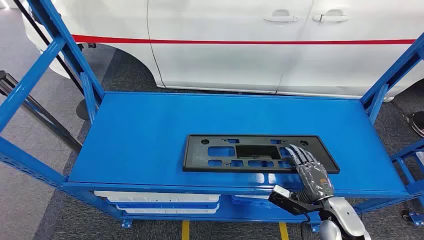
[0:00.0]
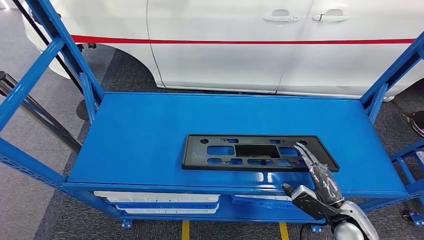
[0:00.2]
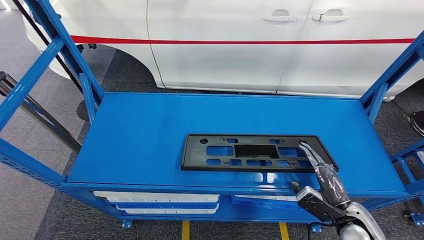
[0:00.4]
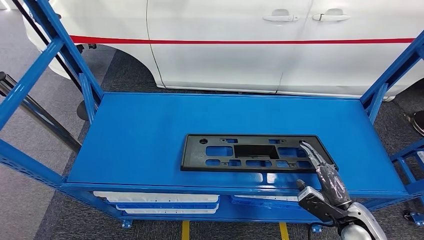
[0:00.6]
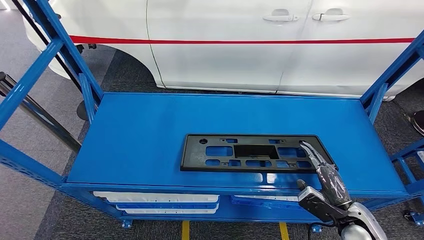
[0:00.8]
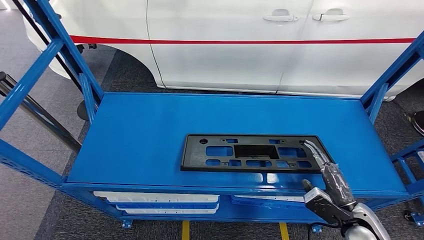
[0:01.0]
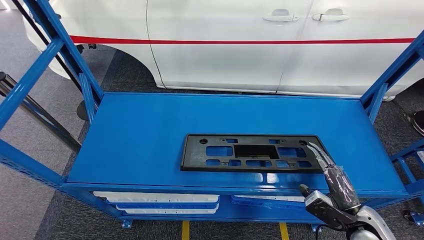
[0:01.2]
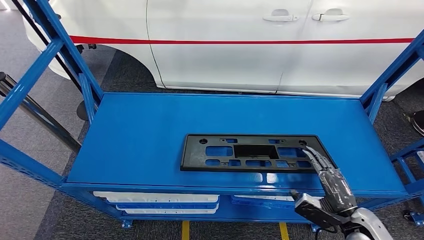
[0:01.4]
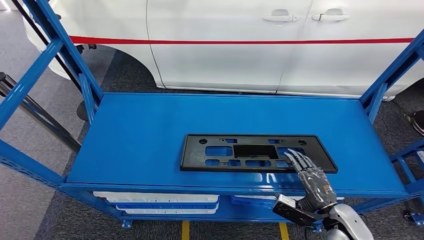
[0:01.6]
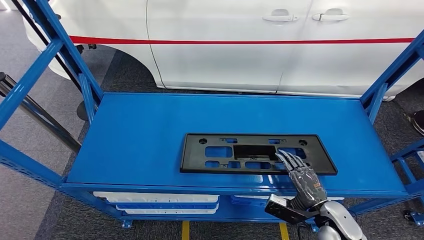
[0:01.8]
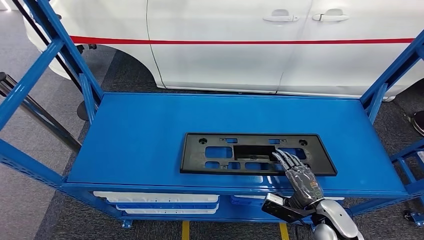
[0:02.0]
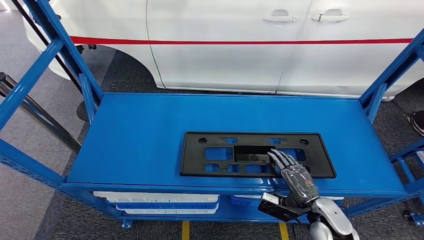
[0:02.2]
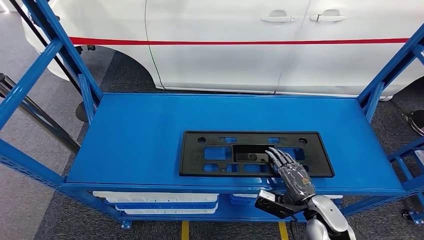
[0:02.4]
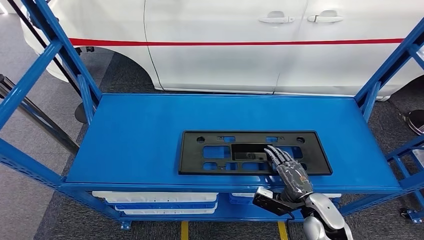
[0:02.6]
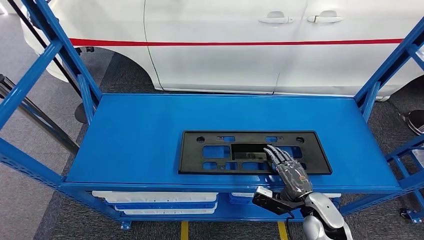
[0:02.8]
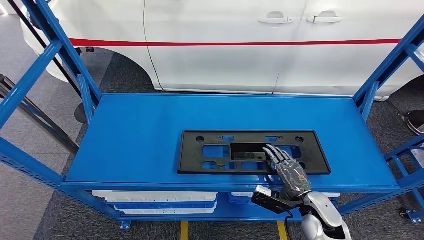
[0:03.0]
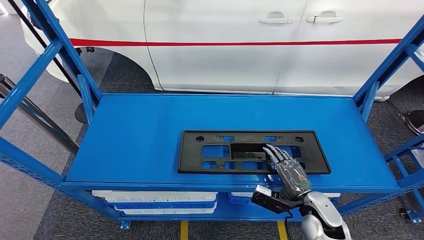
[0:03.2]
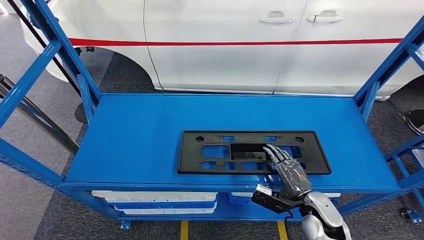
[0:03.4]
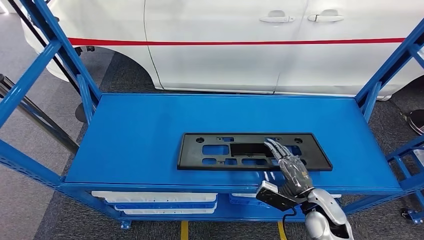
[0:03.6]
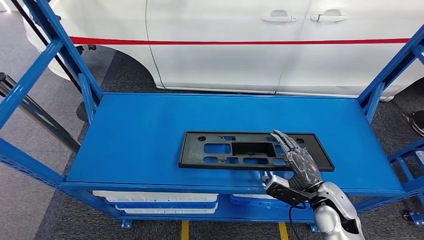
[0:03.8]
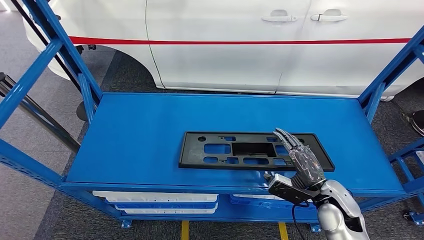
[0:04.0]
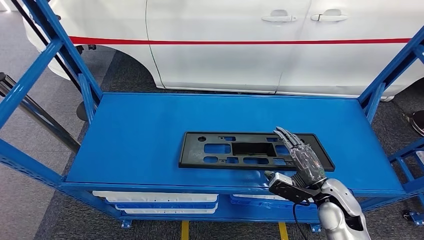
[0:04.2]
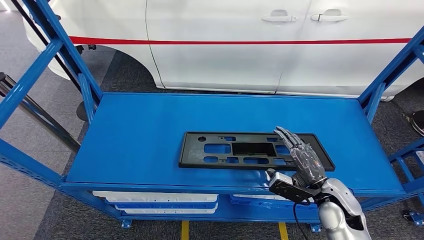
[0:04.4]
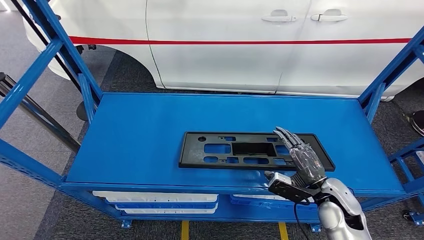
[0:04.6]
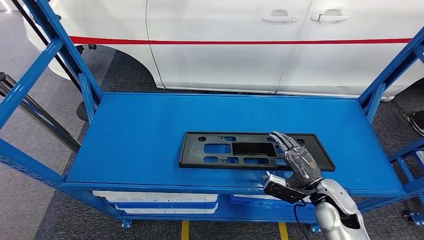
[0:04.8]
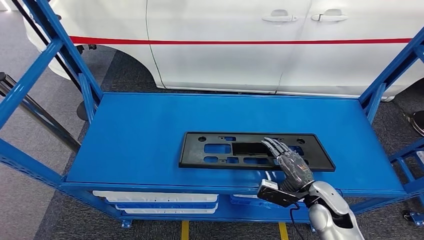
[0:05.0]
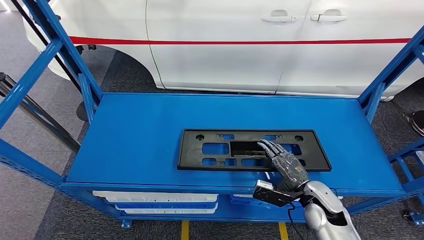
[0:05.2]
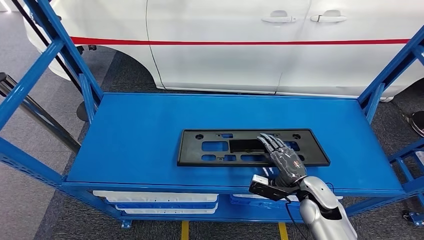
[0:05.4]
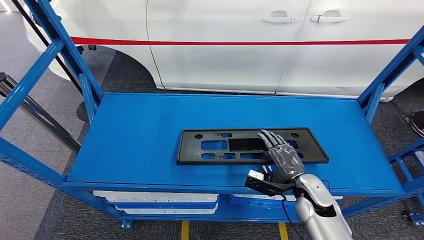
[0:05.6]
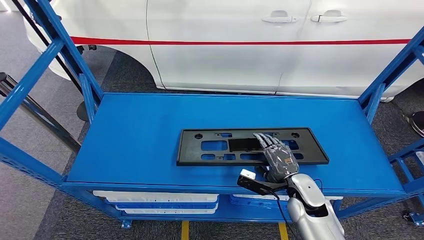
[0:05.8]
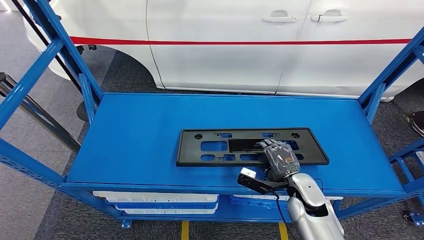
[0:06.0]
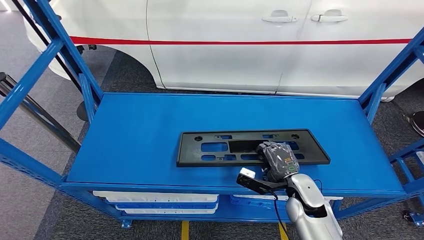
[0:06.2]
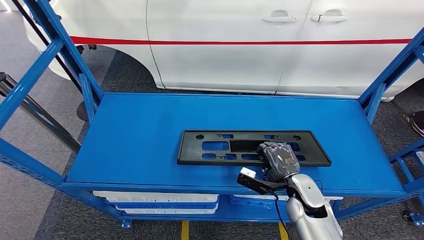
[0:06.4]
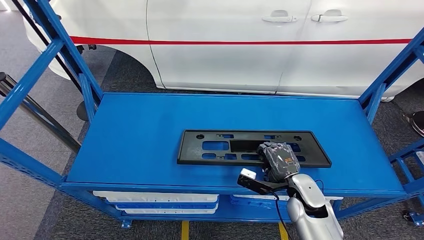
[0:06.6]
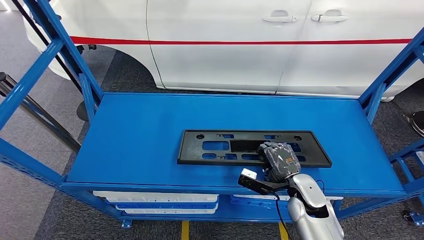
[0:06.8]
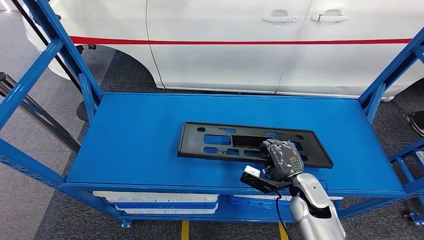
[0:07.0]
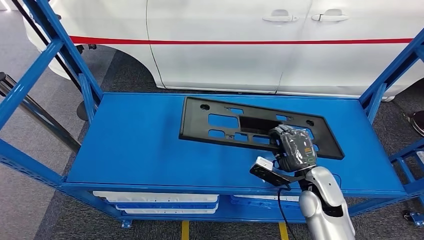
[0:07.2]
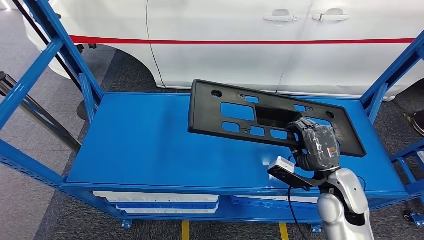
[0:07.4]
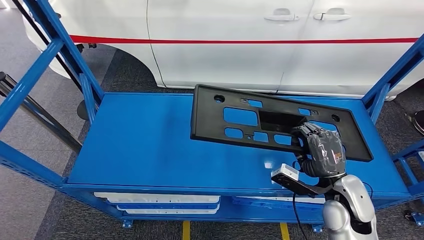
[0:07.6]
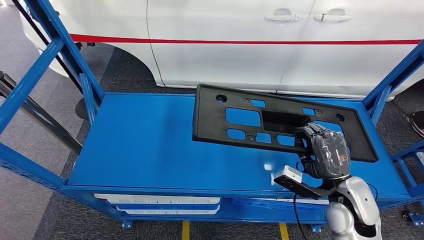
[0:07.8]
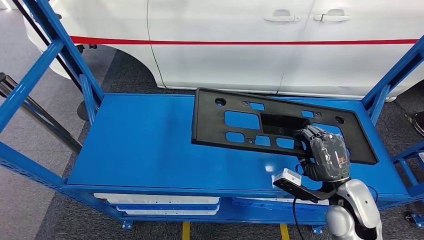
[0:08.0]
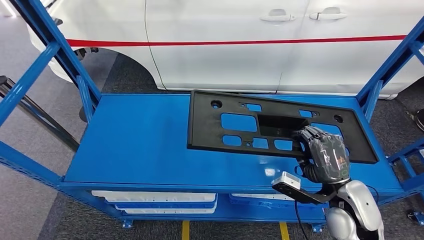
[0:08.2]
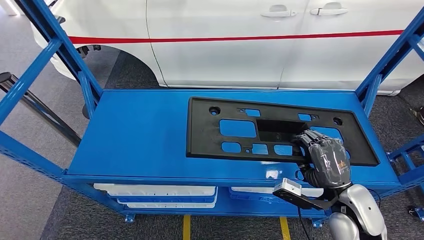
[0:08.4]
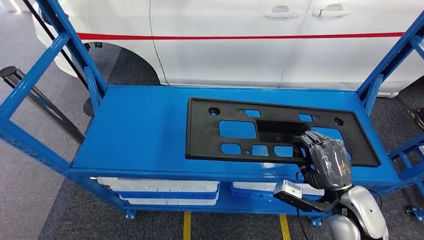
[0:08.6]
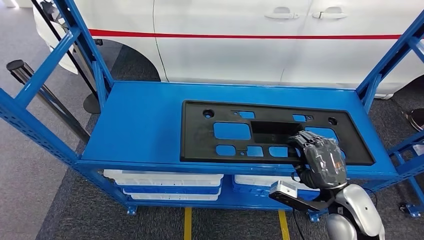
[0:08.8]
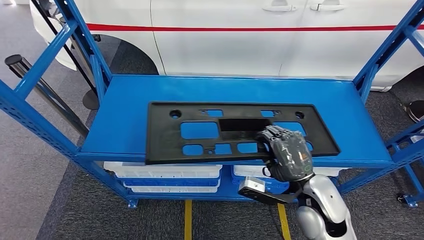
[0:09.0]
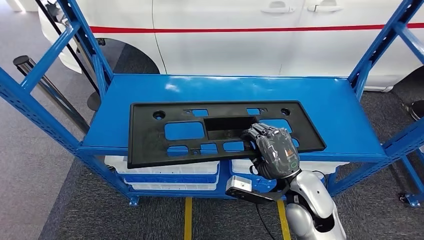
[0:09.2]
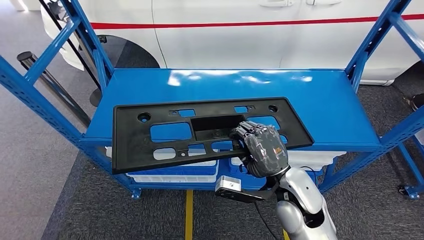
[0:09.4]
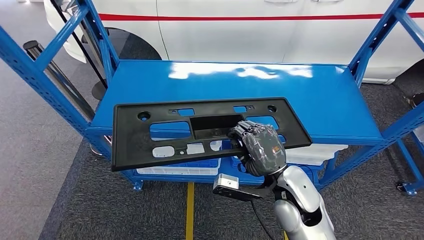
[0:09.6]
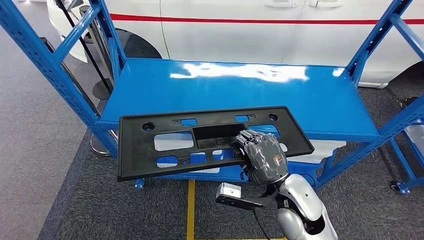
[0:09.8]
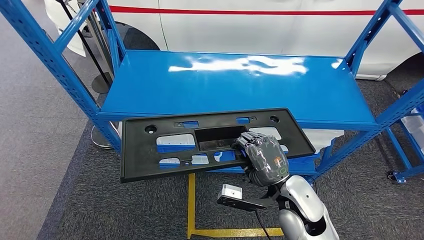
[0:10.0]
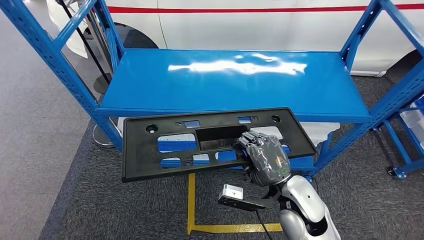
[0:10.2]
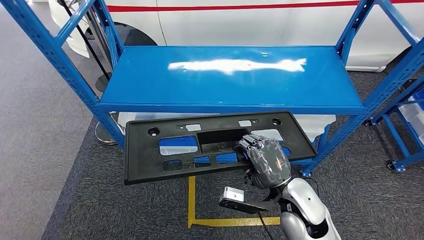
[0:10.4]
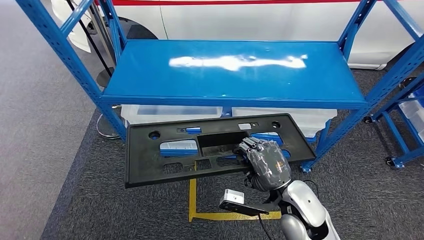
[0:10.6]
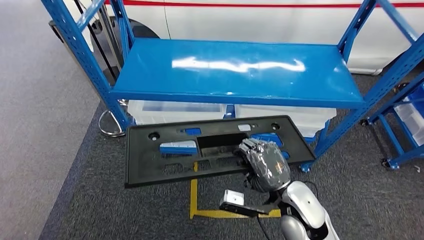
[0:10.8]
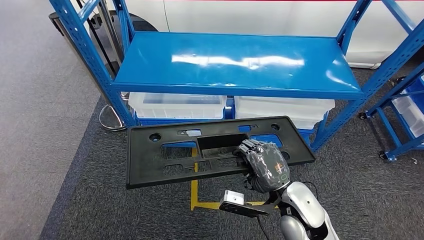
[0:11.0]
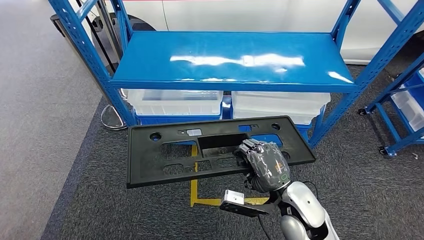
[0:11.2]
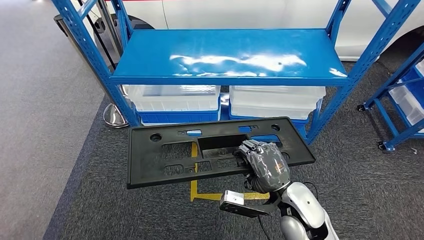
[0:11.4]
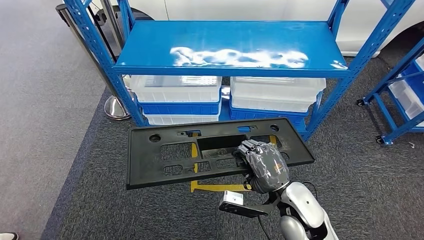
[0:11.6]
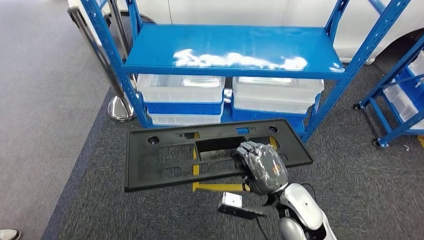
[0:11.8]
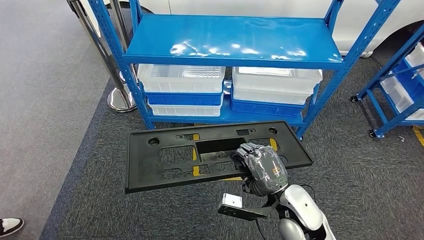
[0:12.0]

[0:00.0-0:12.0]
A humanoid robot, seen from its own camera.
Step, 0:00.0 to 0:07.2: Pick up the large material from the shelf.
0:01.6 to 0:03.0: The right hand moves to the left, some 5 cm.
0:03.0 to 0:04.4: The right hand ends up about 5 cm from where it was.
0:04.4 to 0:06.0: The right hand shifts roughly 5 cm to the left.

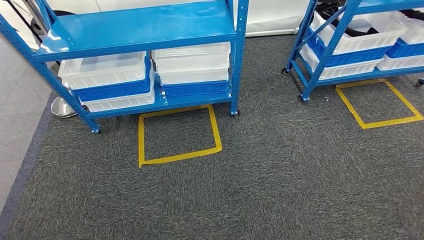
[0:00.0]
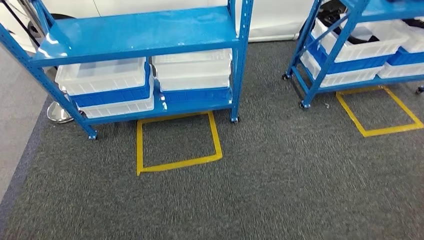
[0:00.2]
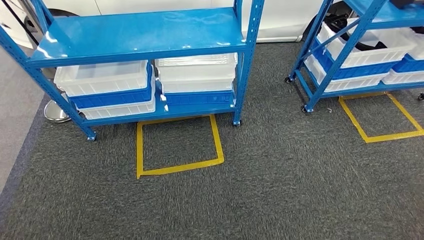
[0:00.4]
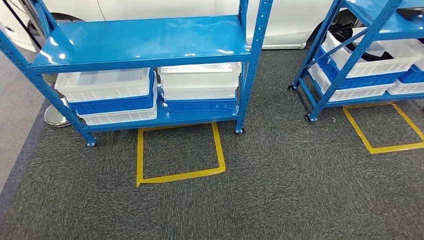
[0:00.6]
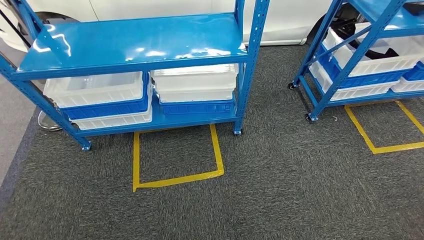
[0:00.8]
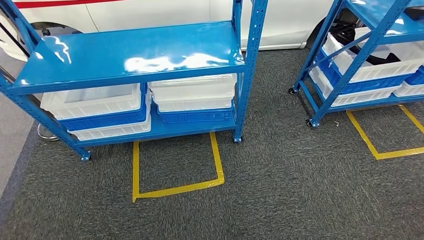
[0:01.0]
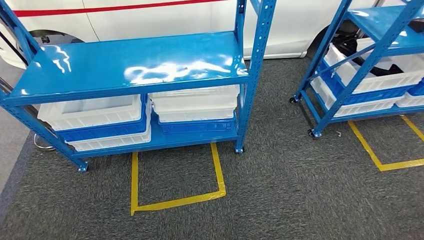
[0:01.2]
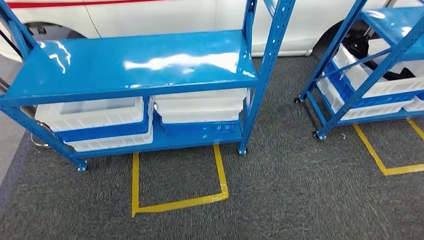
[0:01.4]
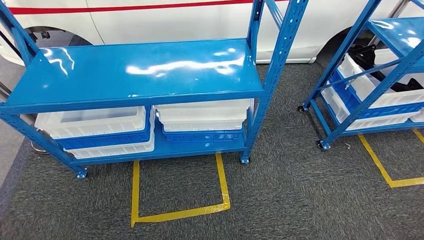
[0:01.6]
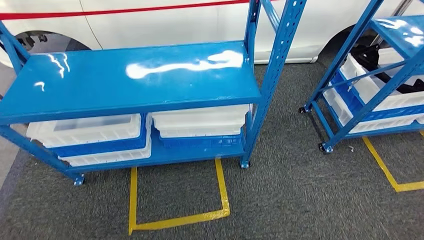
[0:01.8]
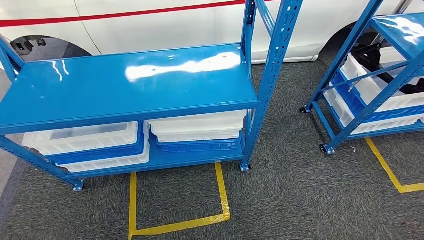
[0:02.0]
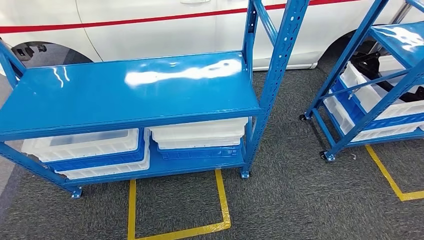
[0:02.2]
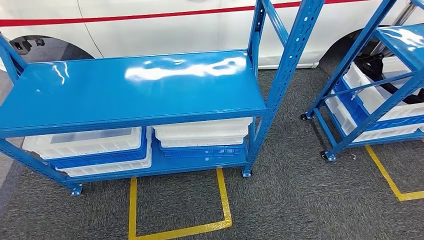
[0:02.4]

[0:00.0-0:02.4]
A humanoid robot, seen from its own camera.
Step, 0:00.0 to 0:02.4: Return to the initial position at the shelf.

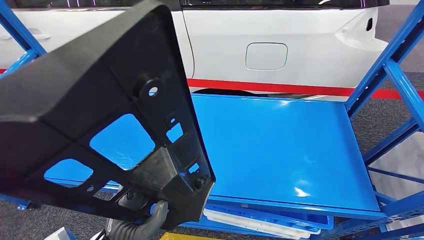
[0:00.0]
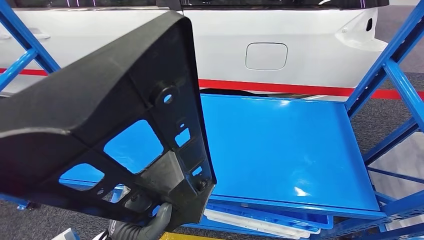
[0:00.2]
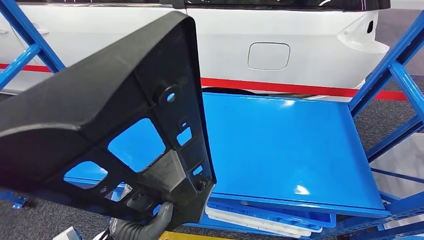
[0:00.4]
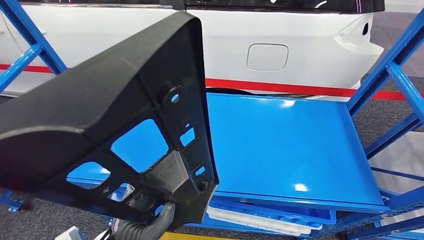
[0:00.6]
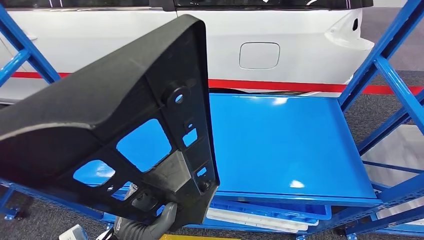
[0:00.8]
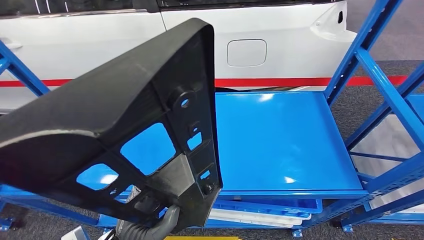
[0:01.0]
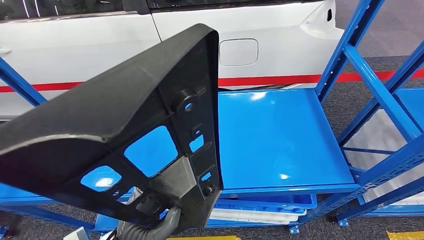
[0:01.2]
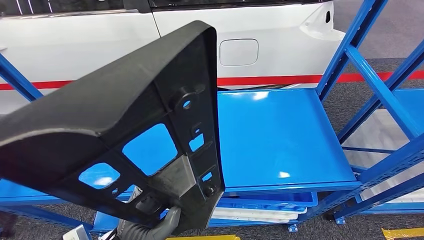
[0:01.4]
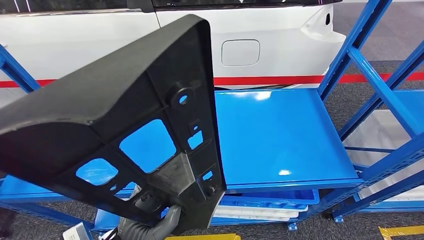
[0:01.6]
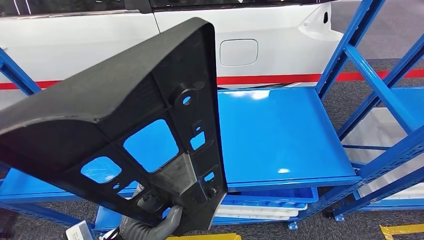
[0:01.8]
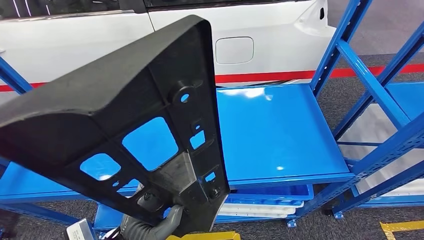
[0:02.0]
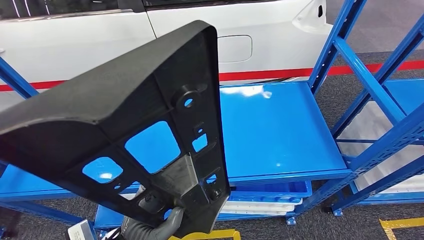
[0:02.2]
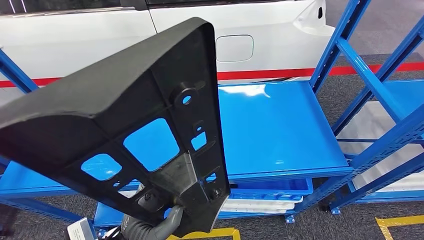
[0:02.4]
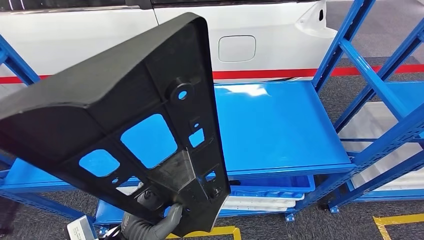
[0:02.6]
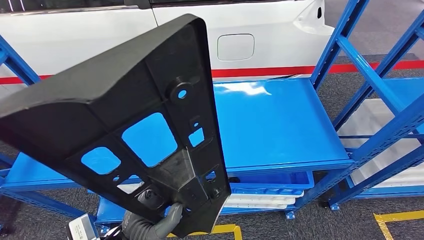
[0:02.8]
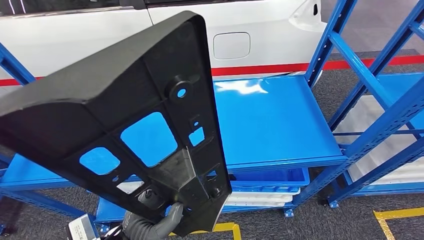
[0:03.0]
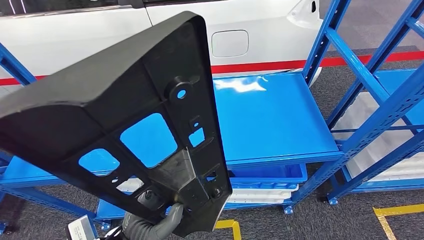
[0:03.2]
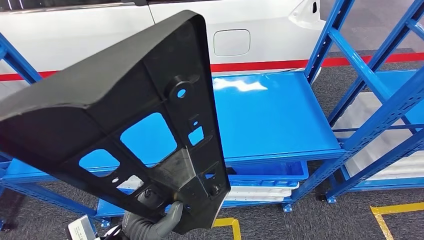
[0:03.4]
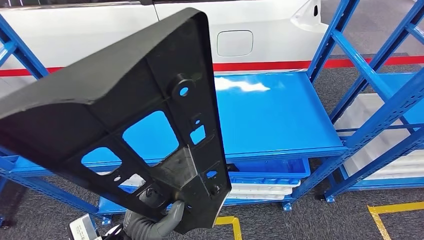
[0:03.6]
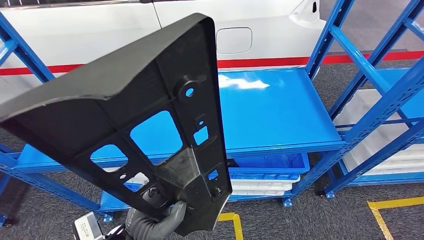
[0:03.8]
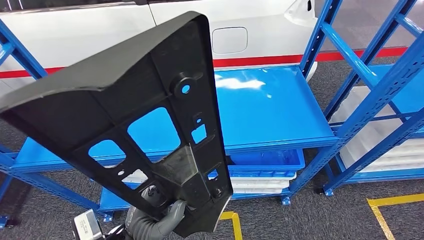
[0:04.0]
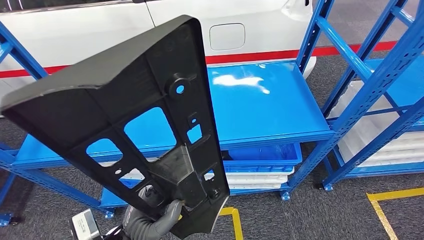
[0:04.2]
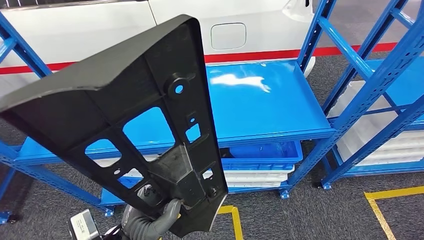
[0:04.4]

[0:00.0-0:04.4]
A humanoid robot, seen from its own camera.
Step, 0:00.0 to 0:03.4: Pick up the large material from the shelf.
